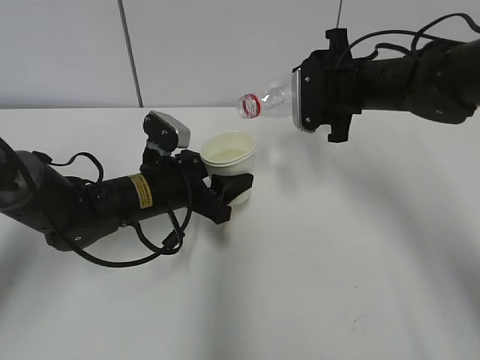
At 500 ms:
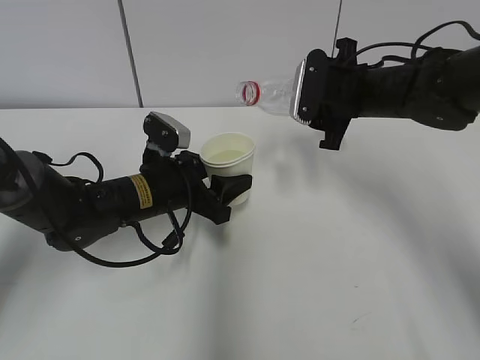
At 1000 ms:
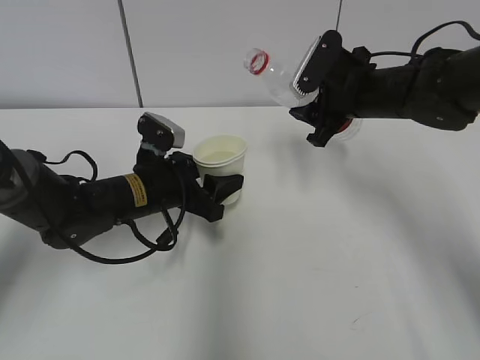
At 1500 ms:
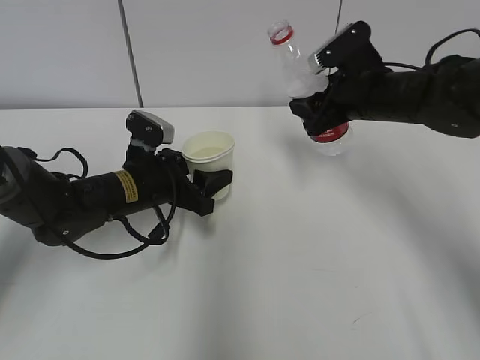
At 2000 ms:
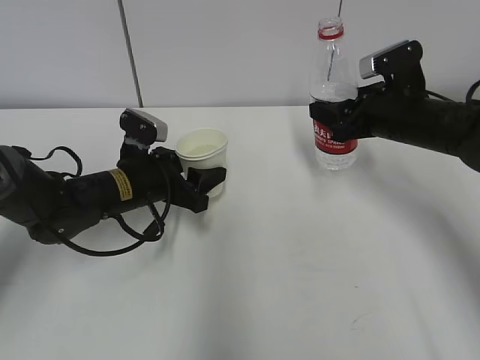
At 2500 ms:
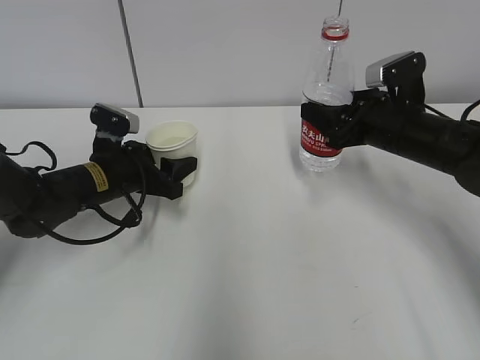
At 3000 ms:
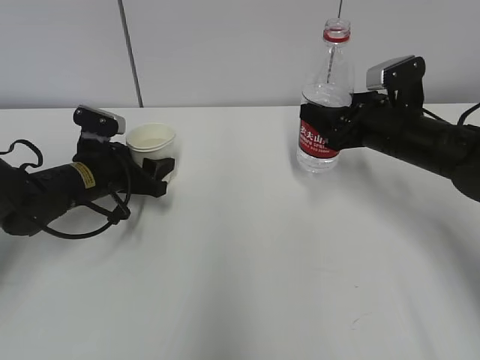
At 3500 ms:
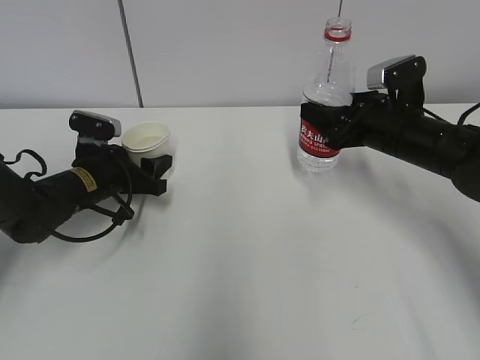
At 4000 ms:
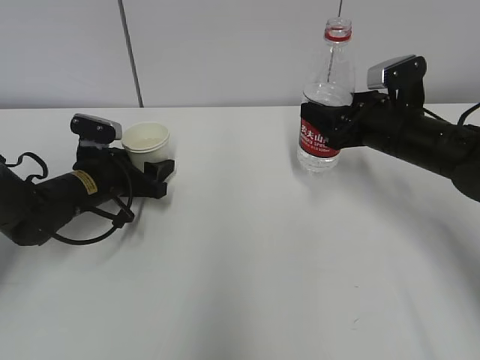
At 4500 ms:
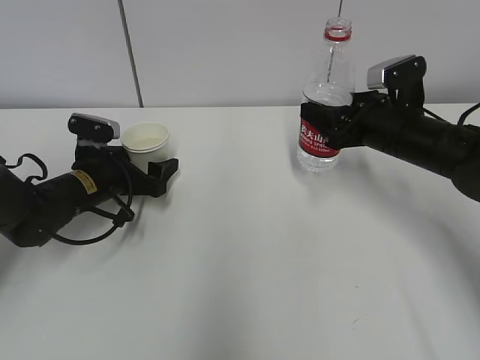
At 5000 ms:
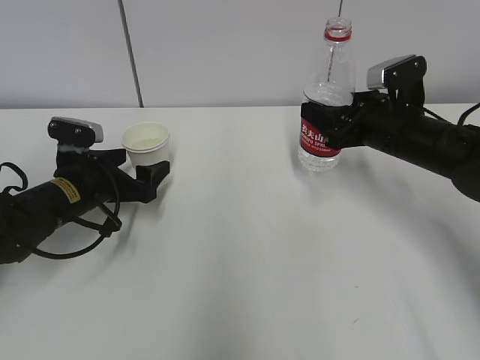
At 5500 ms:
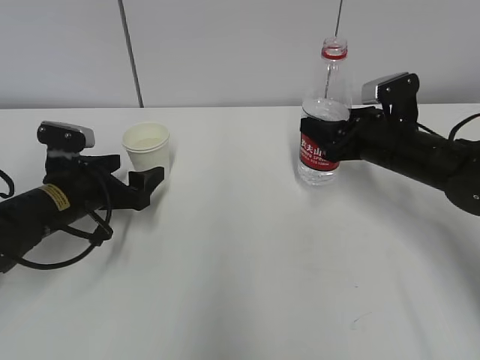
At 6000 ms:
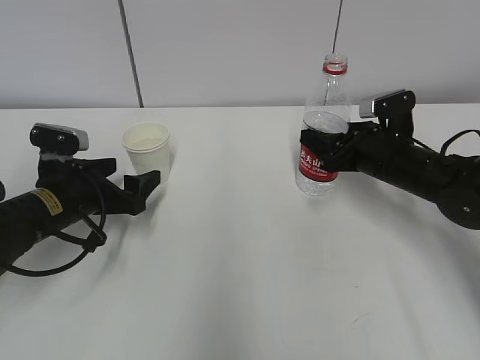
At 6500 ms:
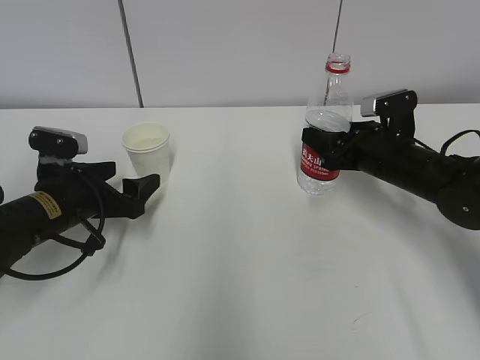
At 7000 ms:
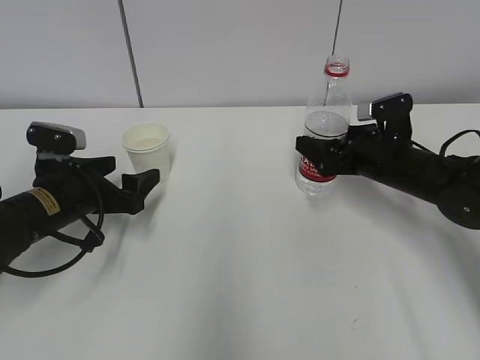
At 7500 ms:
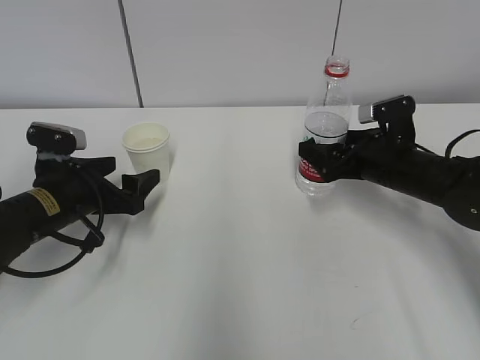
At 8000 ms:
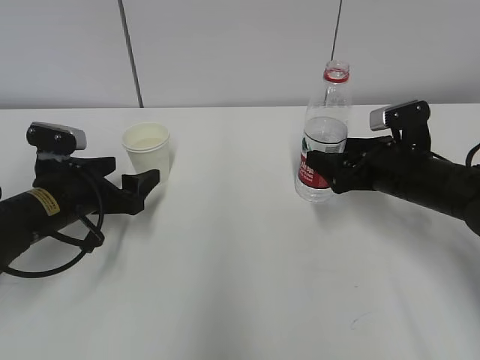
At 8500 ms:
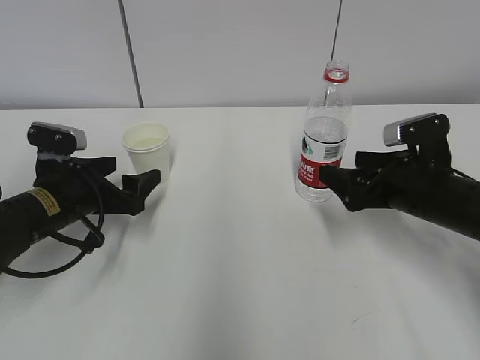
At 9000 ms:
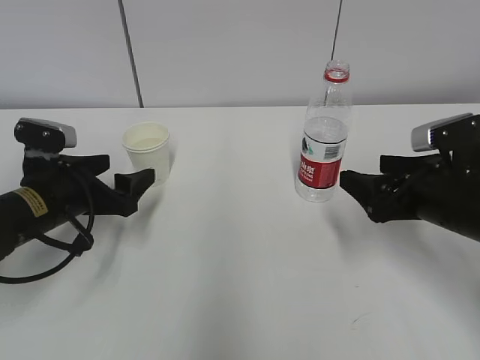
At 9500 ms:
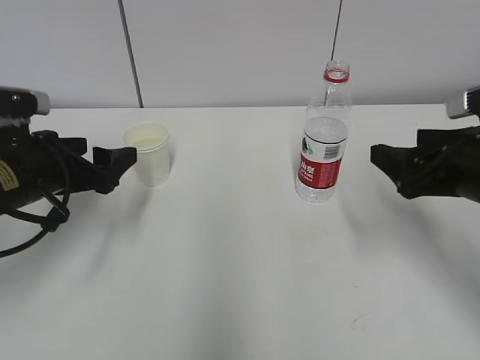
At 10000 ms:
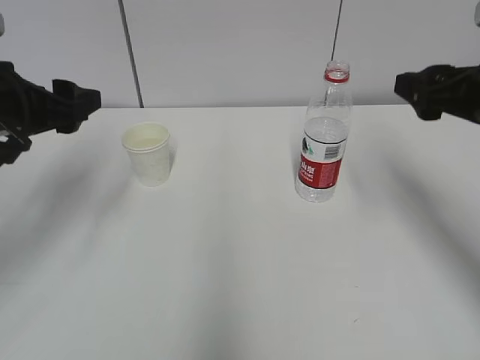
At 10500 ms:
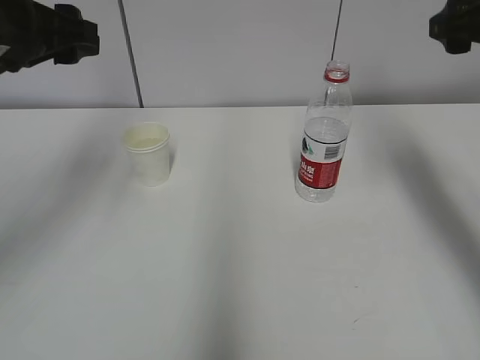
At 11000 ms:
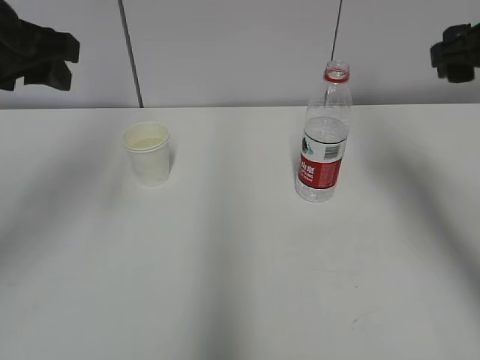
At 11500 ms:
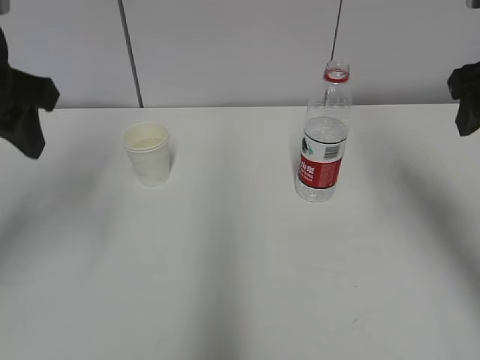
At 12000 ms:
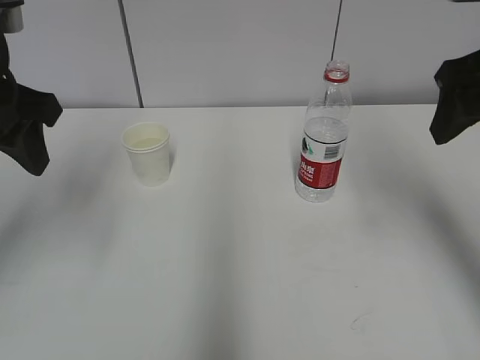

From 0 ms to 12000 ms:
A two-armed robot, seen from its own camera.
Step, from 0 ms to 1500 ms: Place the water bottle with the right hand.
From 0 ms to 2000 ms: The right gripper changes place by approximately 5 cm.
From 2000 ms to 4000 ms: The left gripper moves to the left, about 5 cm.
From 4000 ms to 6000 ms: The left gripper goes some 5 cm backward.
From 6000 ms to 8000 ms: The right gripper opens up.
From 8000 ms to 10000 ms: The left gripper travels upward by roughly 15 cm. The right gripper goes some 15 cm upward and backward.
From 10000 ms to 12000 ms: Both grippers travel together upward, some 10 cm.

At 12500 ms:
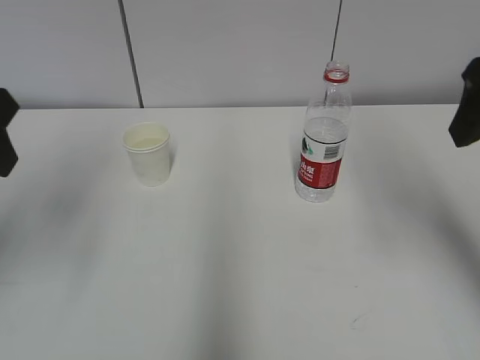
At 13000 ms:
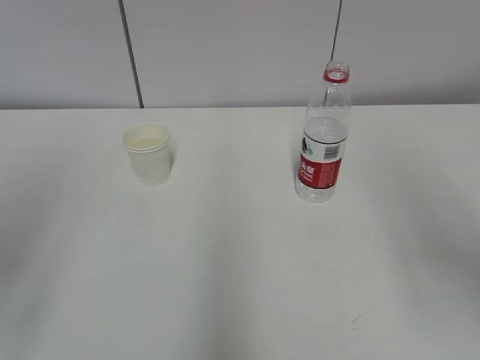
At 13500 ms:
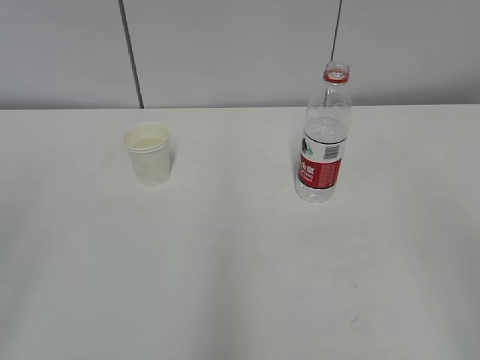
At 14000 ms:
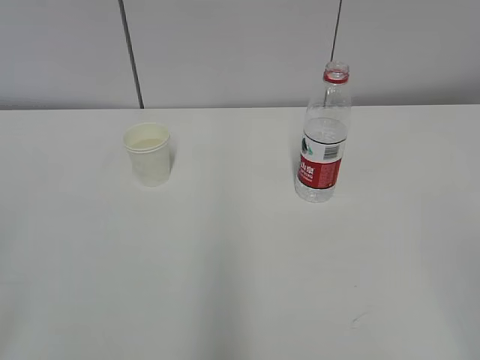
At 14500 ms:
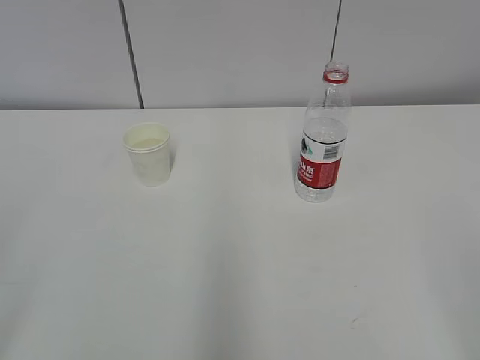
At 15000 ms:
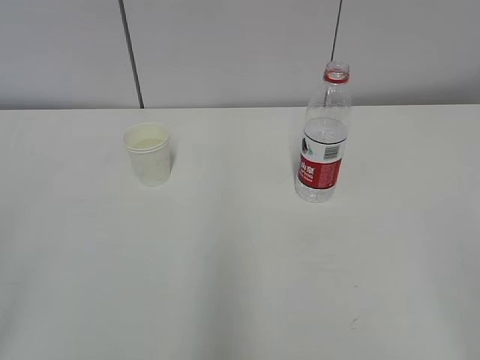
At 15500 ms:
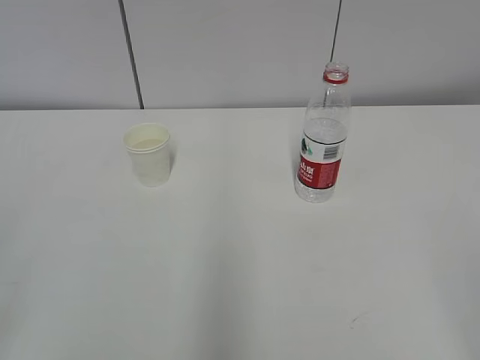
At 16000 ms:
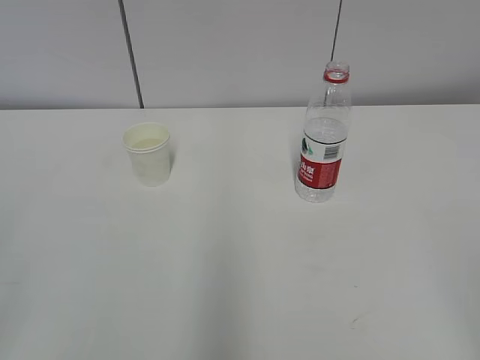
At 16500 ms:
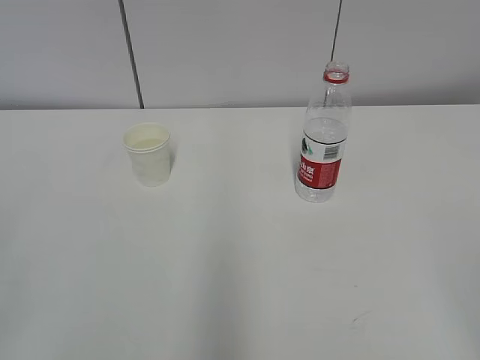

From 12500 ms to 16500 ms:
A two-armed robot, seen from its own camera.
From 12500 ms to 14500 ms: The two grippers go approximately 25 cm backward.
